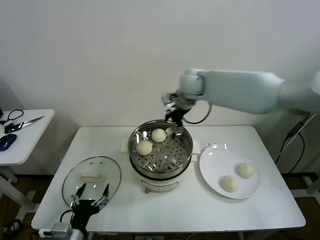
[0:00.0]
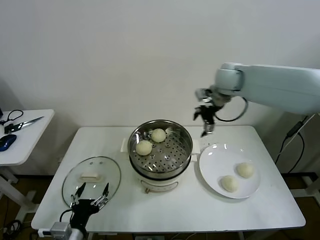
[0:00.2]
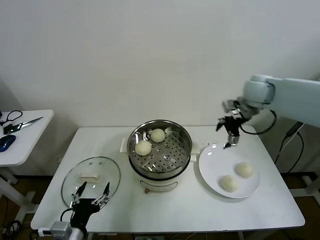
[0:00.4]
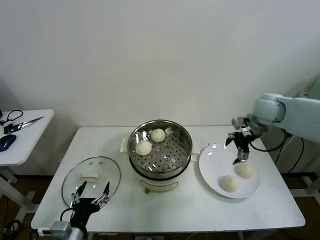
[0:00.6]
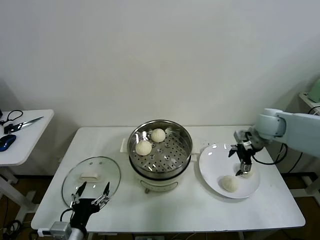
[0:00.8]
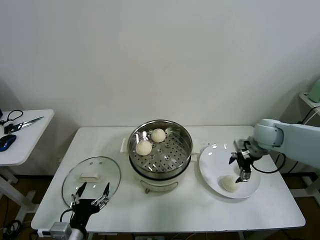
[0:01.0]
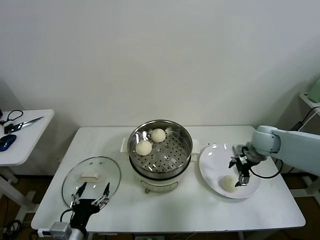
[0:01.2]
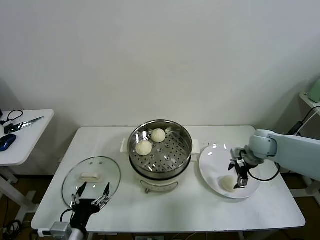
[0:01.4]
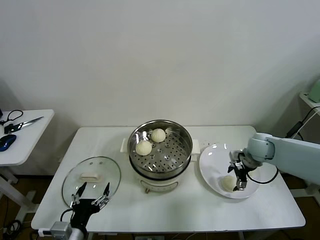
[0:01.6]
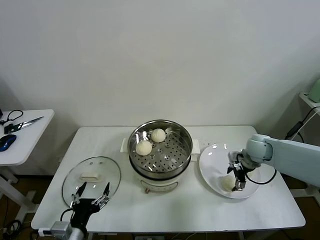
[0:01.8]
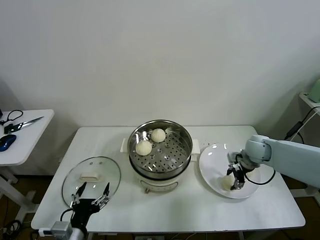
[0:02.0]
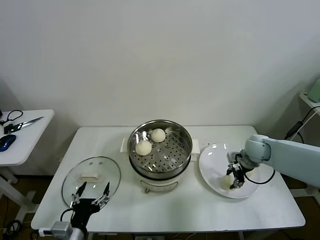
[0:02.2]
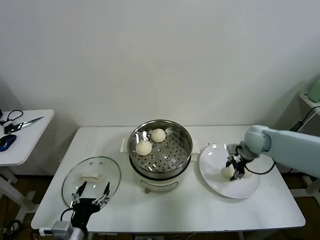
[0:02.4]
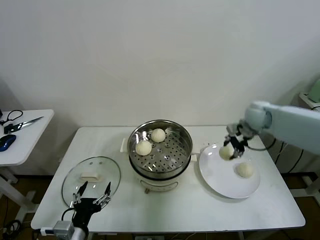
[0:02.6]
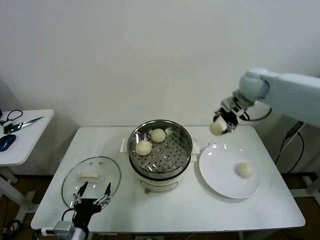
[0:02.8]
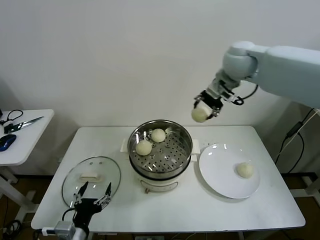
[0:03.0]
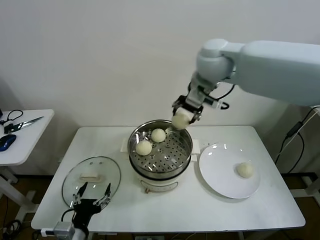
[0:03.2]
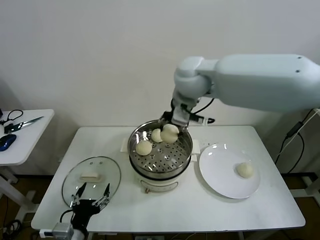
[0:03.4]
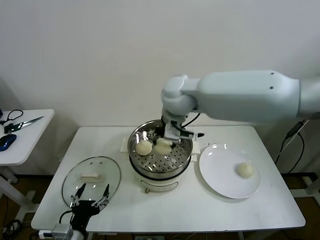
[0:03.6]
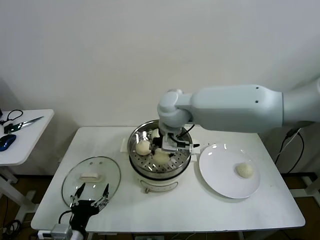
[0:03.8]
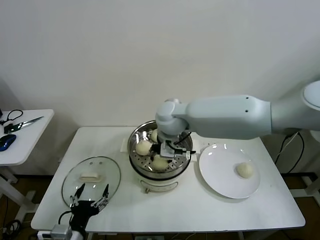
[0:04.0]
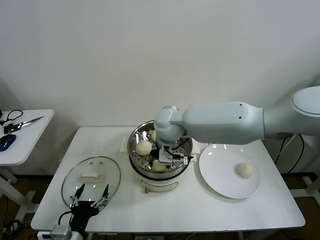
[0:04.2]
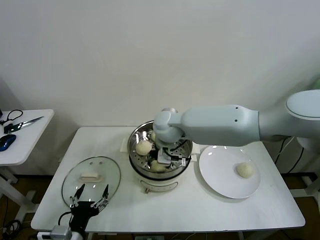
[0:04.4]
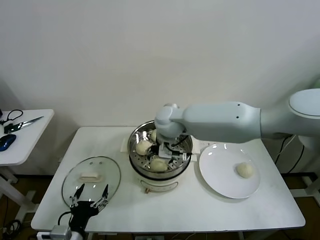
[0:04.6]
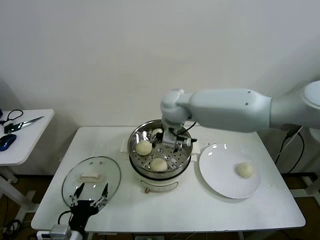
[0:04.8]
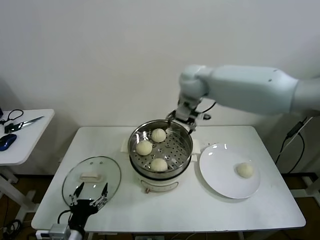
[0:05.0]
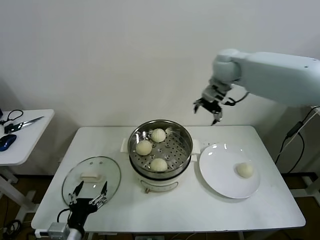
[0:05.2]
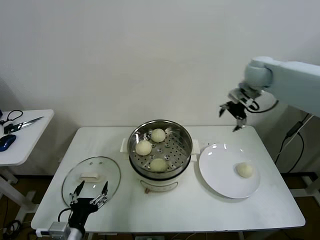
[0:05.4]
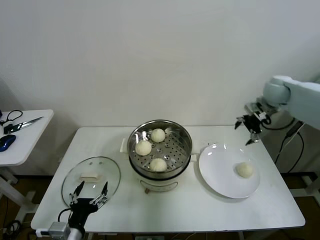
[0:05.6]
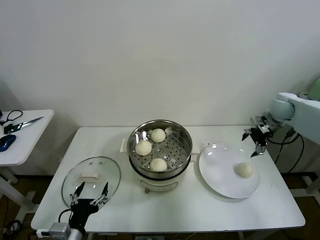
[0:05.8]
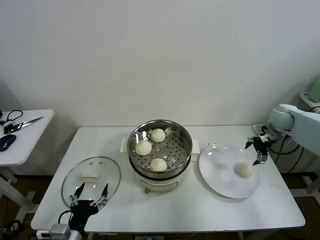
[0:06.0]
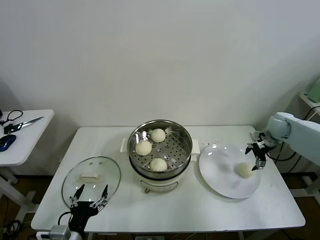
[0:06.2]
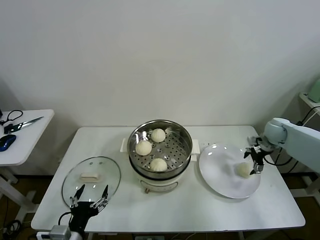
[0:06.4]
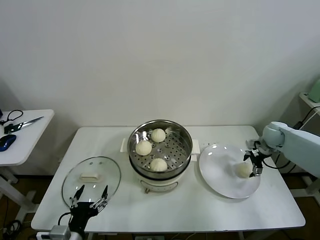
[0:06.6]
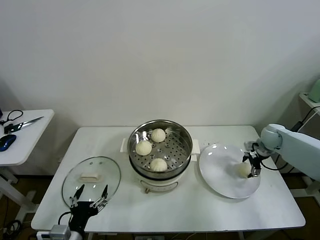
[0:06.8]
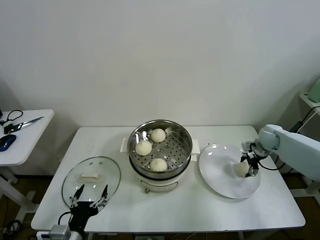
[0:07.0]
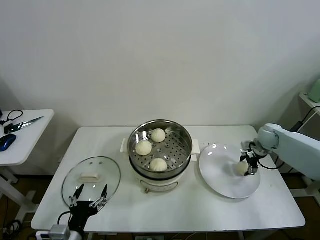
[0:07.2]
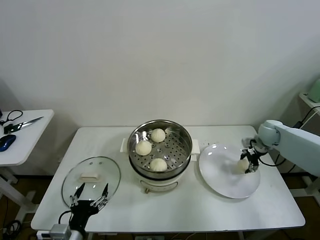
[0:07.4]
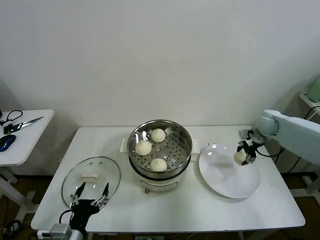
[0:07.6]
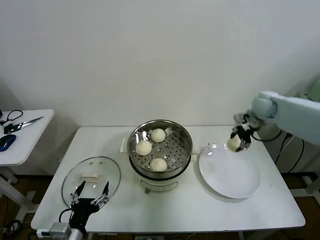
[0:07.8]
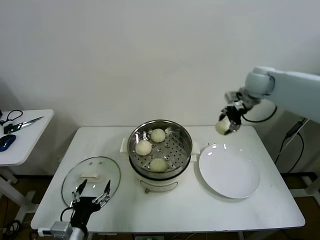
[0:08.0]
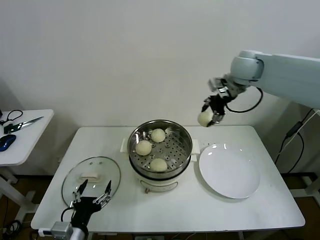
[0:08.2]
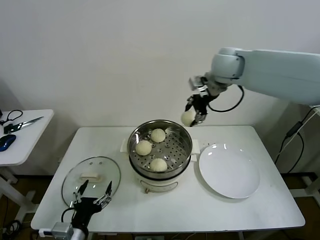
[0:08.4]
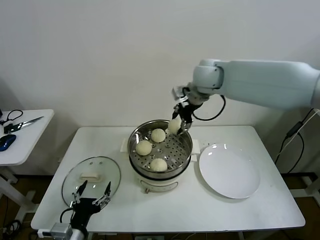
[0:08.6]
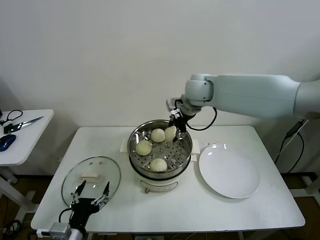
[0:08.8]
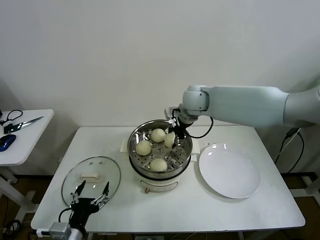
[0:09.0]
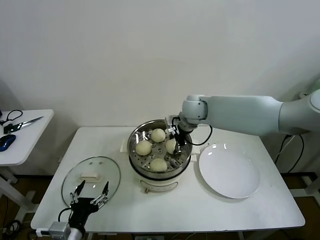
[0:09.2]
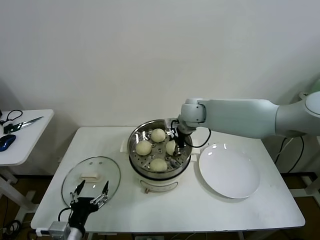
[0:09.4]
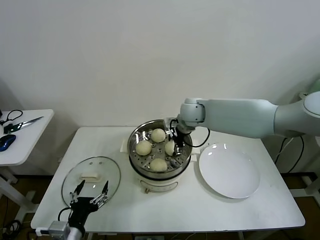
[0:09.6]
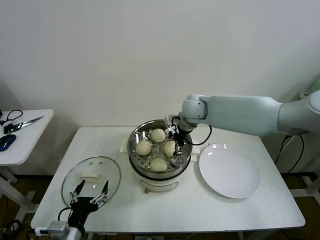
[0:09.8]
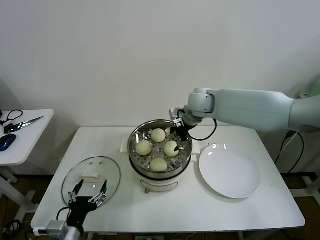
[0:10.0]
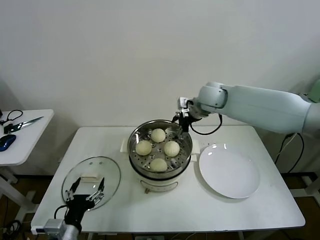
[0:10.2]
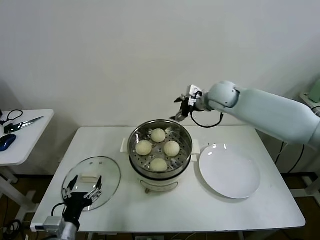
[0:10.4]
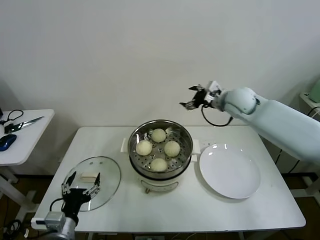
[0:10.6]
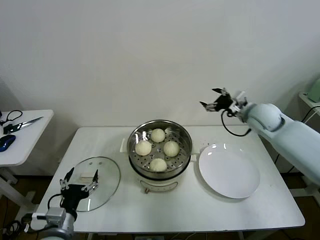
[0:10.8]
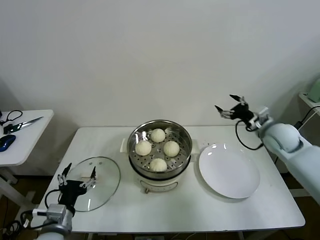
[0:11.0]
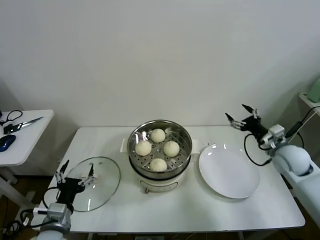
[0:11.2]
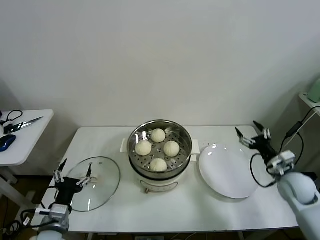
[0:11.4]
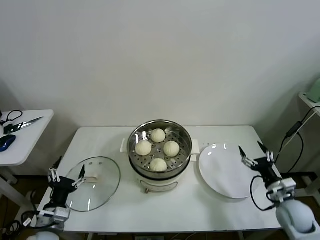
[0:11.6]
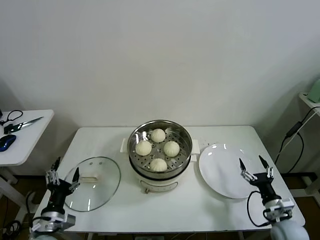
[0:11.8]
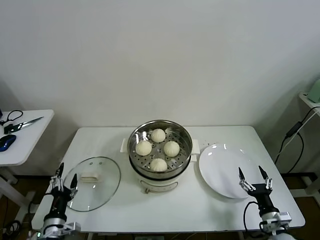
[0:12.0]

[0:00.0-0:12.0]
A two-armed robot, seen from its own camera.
Task of the whole recording: take steamed baozi put them in steamer then cover it.
Step, 0:00.0 to 0:02.2: Grasp the baozi in the plate with right gripper.
Step, 0:02.4 to 0:04.4: Place the baozi on the steamer with right gripper.
Step, 0:04.6 to 0:06.8: Grasp the baozi in the plate with right gripper.
Step, 0:07.2 to 0:09.6: Place the baozi on the steamer with right gripper.
0:00.0 to 0:01.6: The right gripper shifts approximately 30 cm downward, to the right and backward.
0:01.6 to 0:03.0: The right gripper travels upward and to the left by approximately 35 cm, and closes up.
0:03.0 to 0:04.4: The right gripper heads downward and to the left, covering roughly 25 cm, and opens its fingers.
0:04.4 to 0:06.0: The right gripper shifts some 40 cm to the right.
0:06.0 to 0:07.6: The right gripper travels downward and back again, roughly 10 cm each way, and closes its fingers.
0:07.6 to 0:09.0: The right gripper travels to the left by about 30 cm.
0:09.0 to 0:10.4: The right gripper moves to the right, some 10 cm, and opens.
0:10.4 to 0:12.0: The right gripper moves backward, downward and to the right, roughly 50 cm. The left gripper shifts about 10 cm downward and to the left.

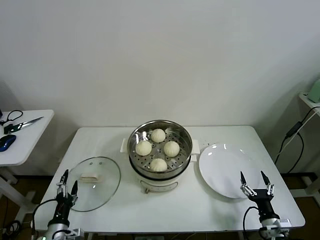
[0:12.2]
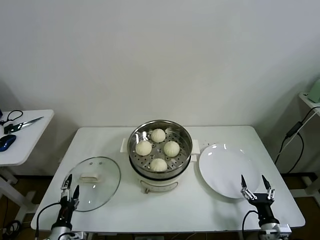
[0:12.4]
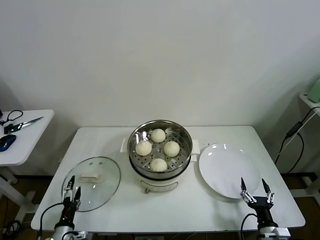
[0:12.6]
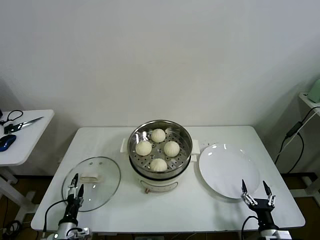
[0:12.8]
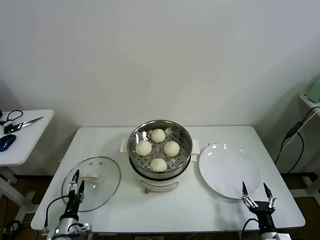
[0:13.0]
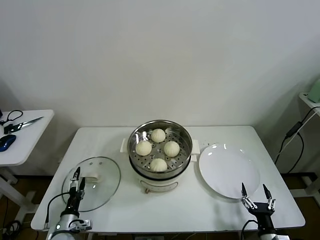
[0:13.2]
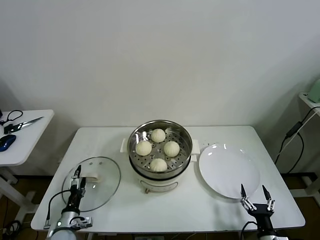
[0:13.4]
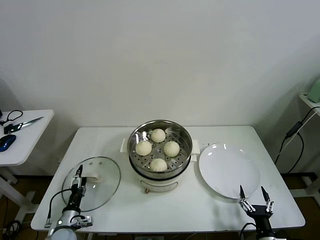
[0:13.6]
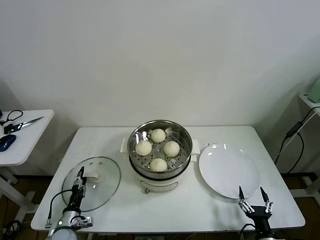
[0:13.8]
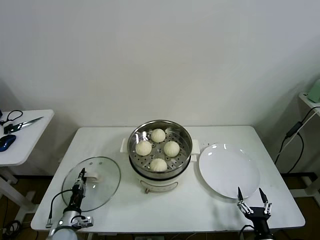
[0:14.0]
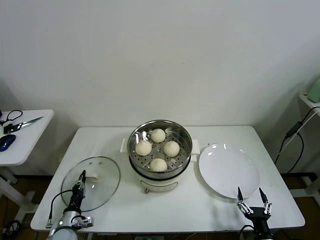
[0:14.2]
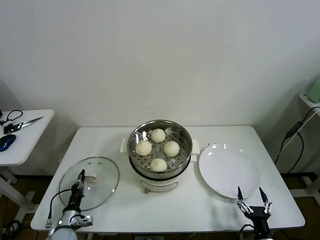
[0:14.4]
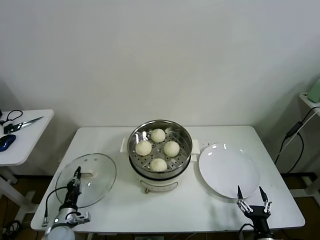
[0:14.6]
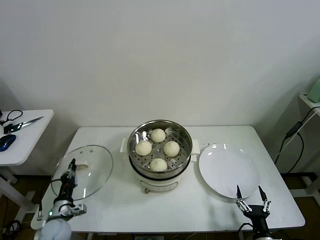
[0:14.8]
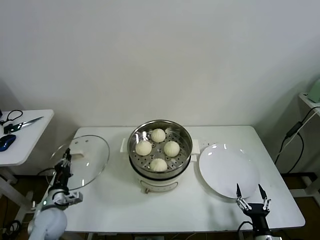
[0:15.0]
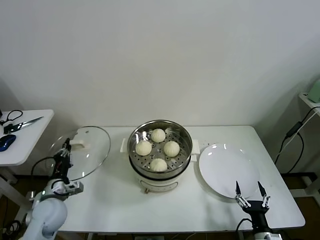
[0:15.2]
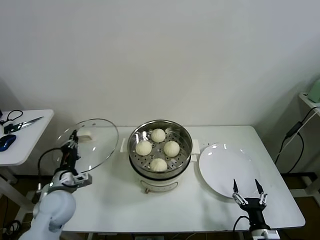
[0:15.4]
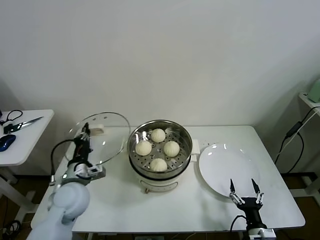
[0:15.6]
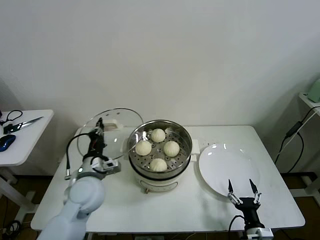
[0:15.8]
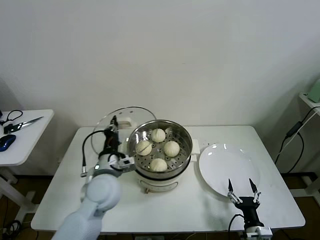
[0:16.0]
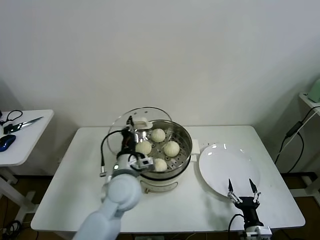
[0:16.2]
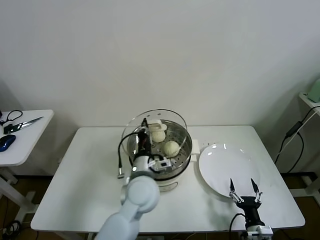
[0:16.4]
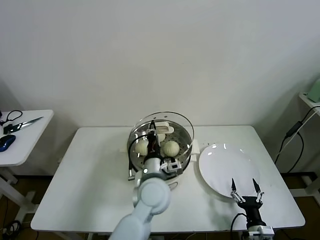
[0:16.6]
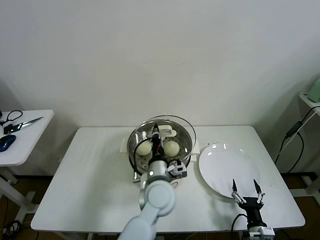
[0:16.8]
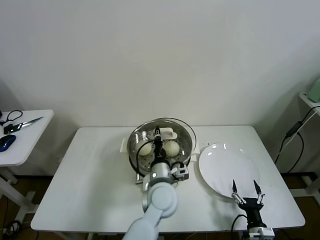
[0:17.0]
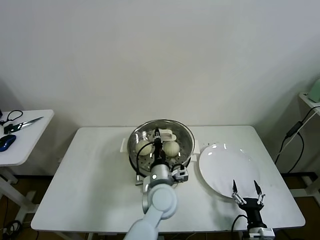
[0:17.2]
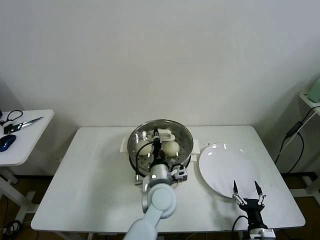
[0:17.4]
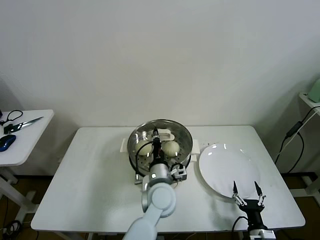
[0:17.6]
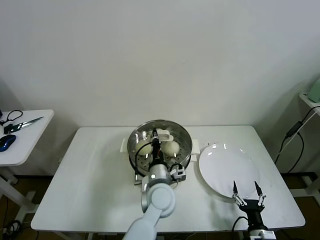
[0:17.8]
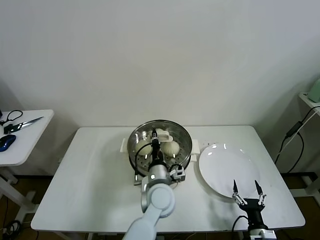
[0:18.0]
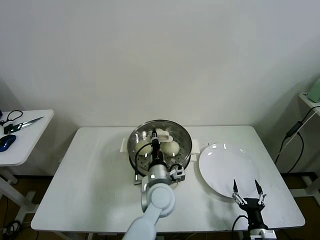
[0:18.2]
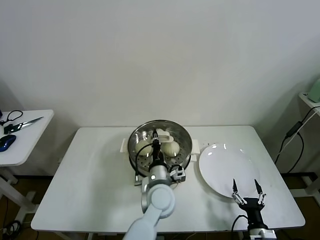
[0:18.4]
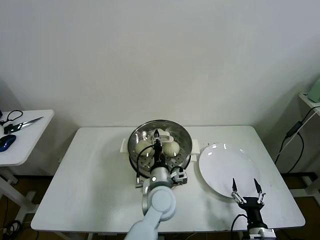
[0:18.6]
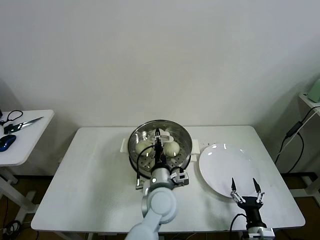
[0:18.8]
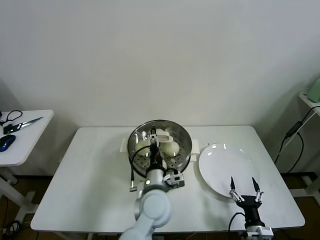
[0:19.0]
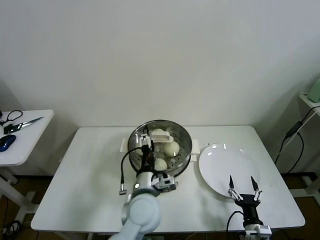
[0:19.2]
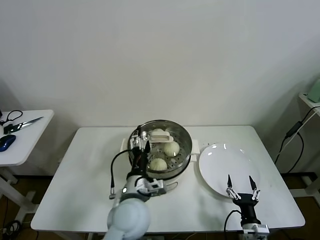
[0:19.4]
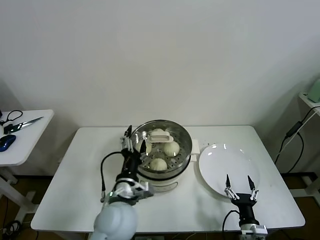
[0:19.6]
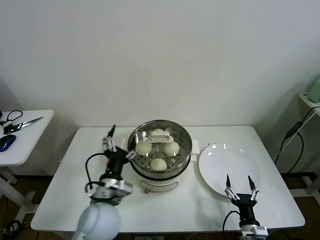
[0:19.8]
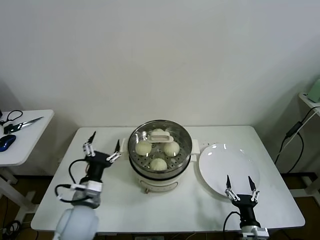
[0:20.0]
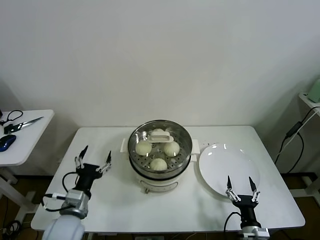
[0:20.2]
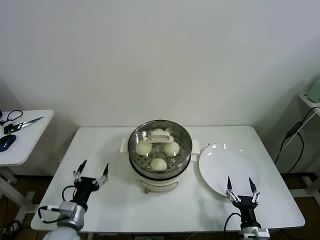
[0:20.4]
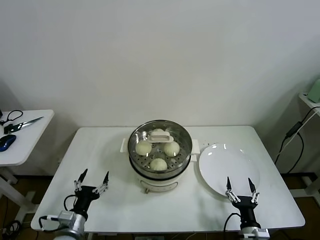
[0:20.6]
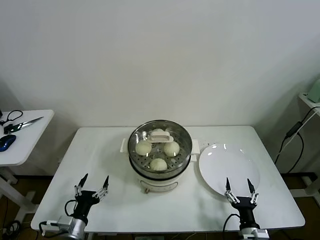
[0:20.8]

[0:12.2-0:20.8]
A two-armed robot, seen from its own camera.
Task of the whole recording: take steamed baozi put them in steamer then cover it.
Step, 0:12.2 to 0:14.2: Grasp the pot lid with left gripper.
Step, 0:14.4 to 0:18.6: Place the pot lid on the steamer with left gripper.
0:12.2 to 0:13.6: The right gripper shifts by some 5 cm. Meanwhile the left gripper heads downward and forward, covering approximately 10 cm.
0:13.6 to 0:15.0: The left gripper shifts about 10 cm upward, and closes up.
0:15.0 to 0:16.6: The left gripper is displaced to the right and upward by some 35 cm.
0:16.6 to 0:18.0: The left gripper goes roughly 5 cm downward.
0:18.0 to 0:19.4: The left gripper heads to the left and backward, covering roughly 10 cm, and opens up.
0:19.4 to 0:20.8: The left gripper heads to the left and downward, covering roughly 25 cm.
